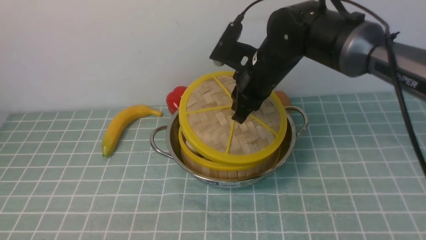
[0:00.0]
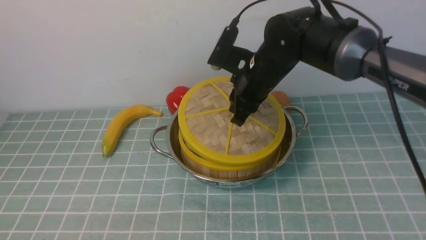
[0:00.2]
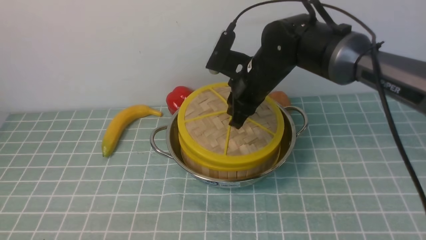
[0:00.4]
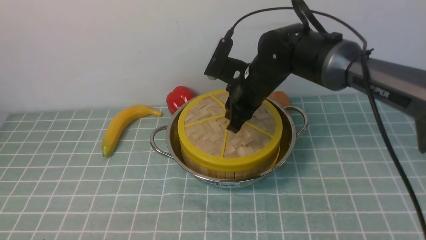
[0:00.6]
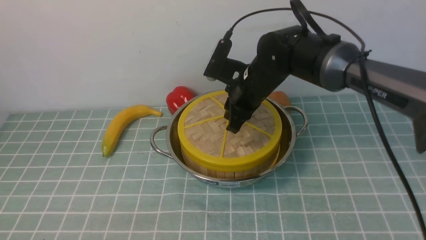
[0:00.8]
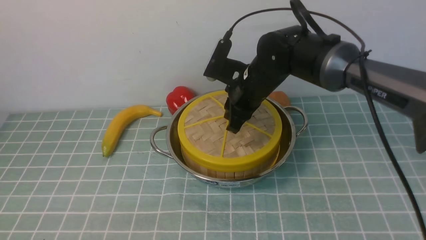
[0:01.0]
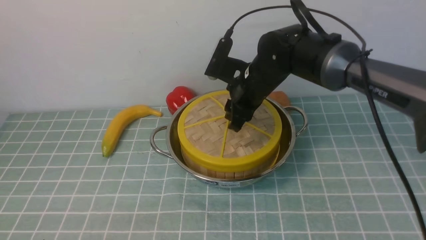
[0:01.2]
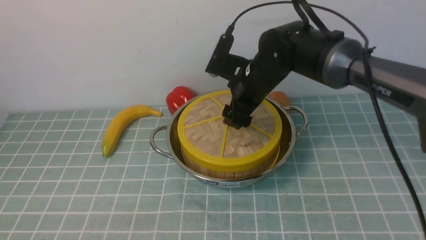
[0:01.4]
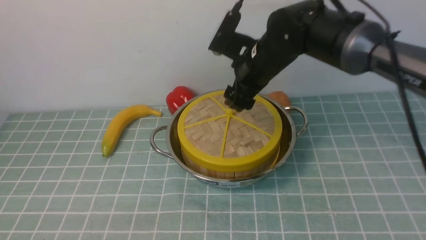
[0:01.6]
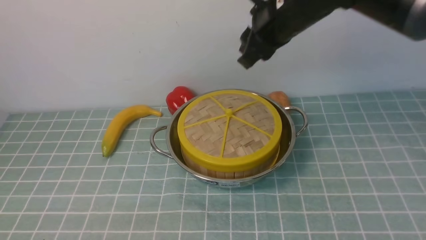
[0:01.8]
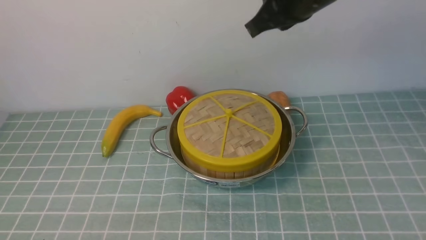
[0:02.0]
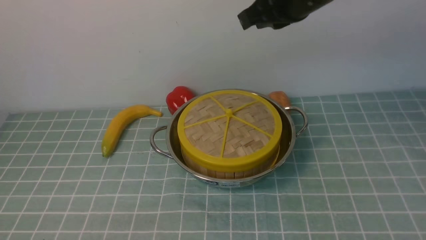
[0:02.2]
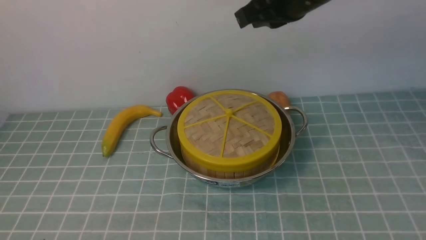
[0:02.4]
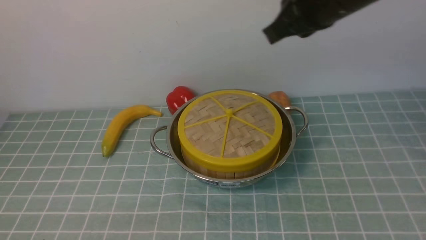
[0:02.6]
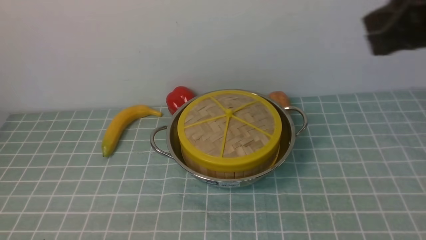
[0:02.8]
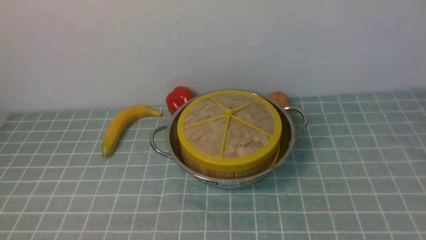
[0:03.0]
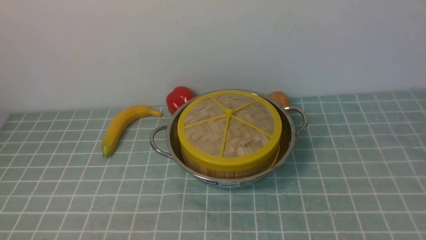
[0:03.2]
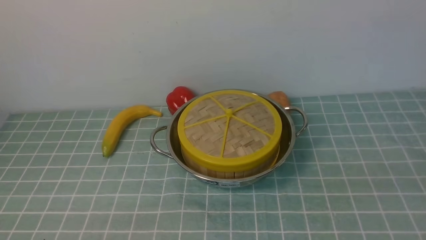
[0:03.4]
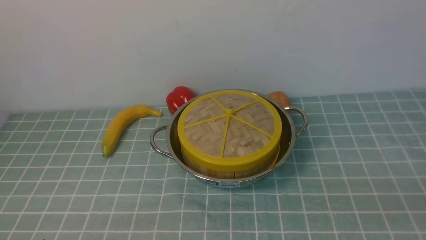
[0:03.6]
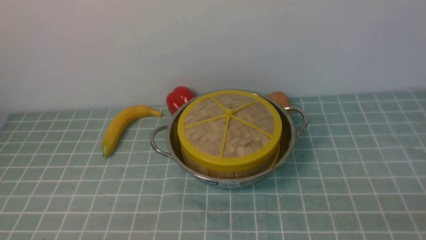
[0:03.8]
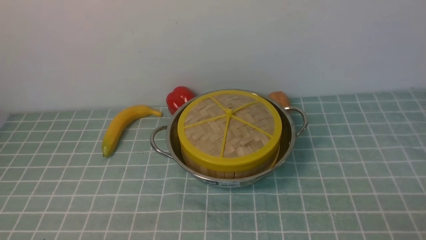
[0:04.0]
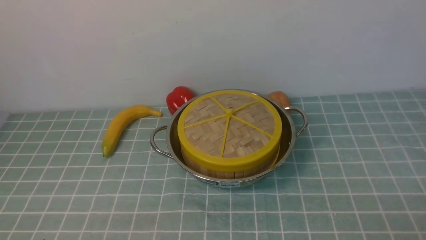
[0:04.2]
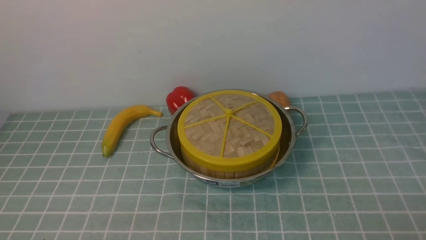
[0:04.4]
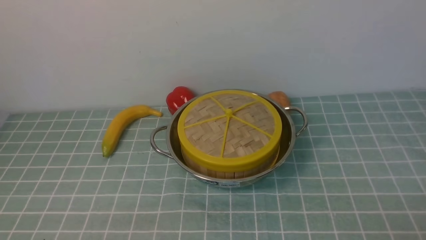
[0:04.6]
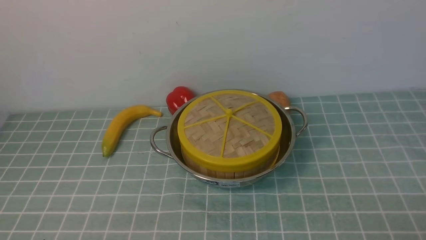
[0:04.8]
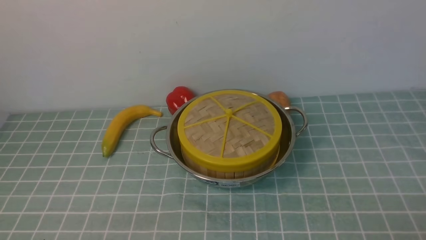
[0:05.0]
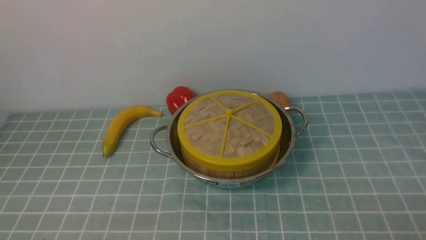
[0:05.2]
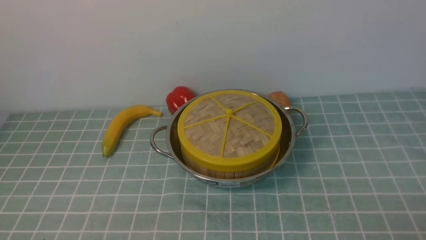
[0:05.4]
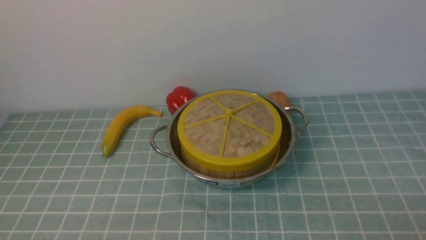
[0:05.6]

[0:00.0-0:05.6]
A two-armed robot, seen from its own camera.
Task of the whole recording: place the steamer in the pot on the blue tablecloth, and put the lid on the steamer.
Step, 0:00.0 to 0:02.6: use the right arm to place the steamer lid on the steamer.
0:00.0 to 0:01.4: The right gripper opens.
0:01.4 to 0:02.8: The right gripper is displaced backward, to the right and upward by some 30 cm, and closes.
0:02.8 to 0:04.2: The right gripper goes approximately 30 cm downward and backward.
0:04.2 to 0:05.6: Both grippers stay about where they are.

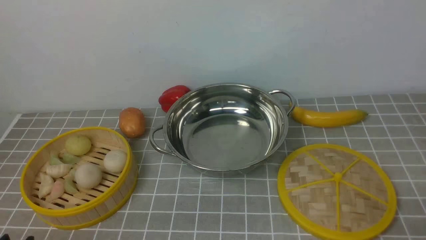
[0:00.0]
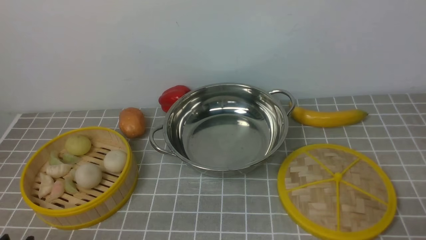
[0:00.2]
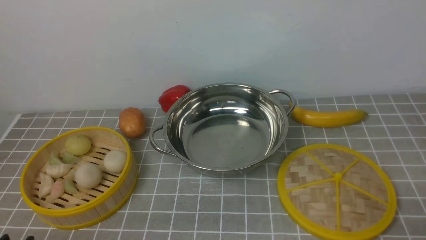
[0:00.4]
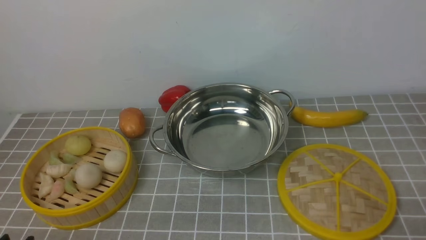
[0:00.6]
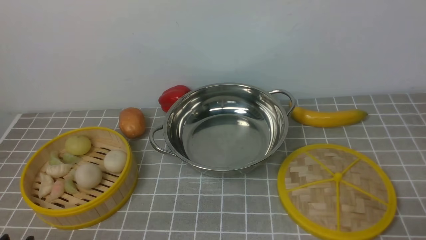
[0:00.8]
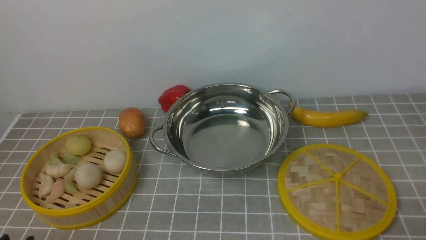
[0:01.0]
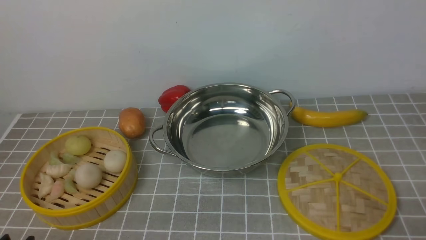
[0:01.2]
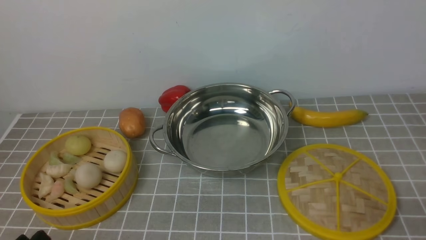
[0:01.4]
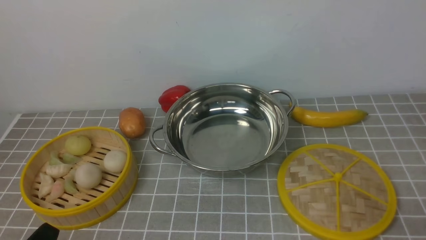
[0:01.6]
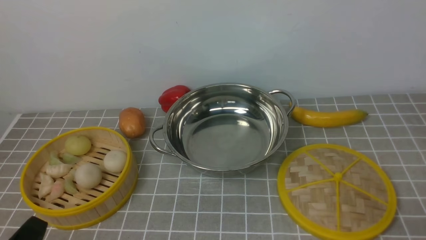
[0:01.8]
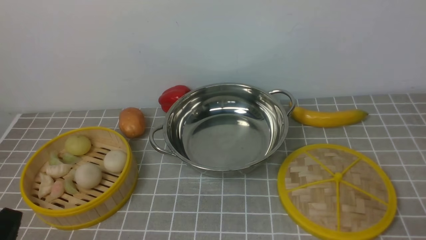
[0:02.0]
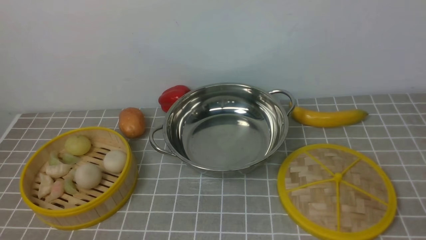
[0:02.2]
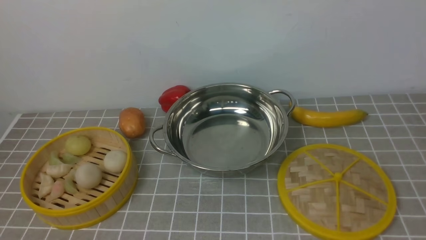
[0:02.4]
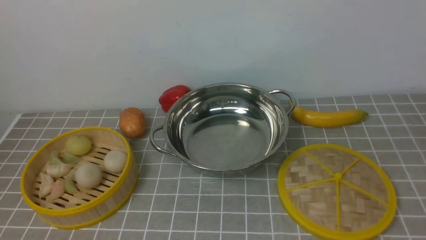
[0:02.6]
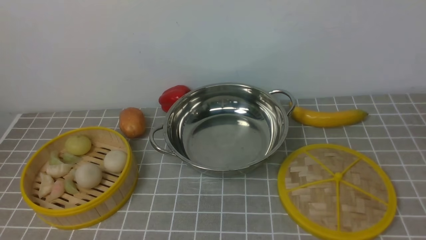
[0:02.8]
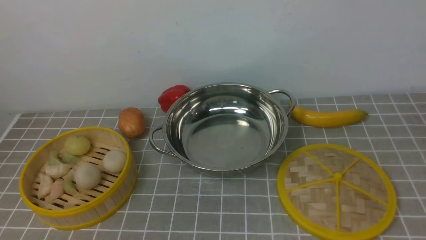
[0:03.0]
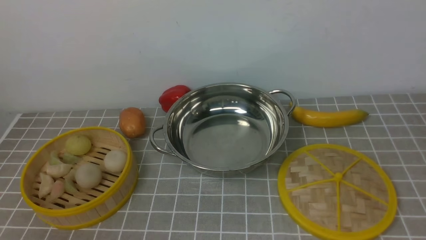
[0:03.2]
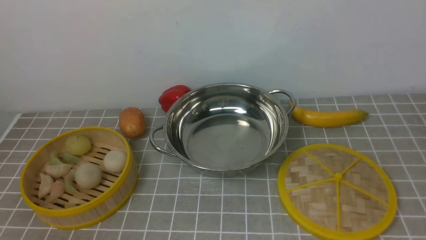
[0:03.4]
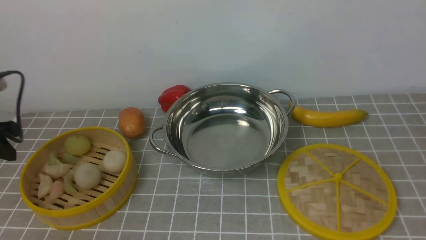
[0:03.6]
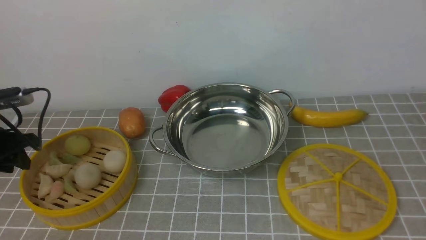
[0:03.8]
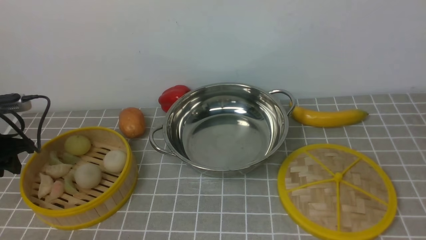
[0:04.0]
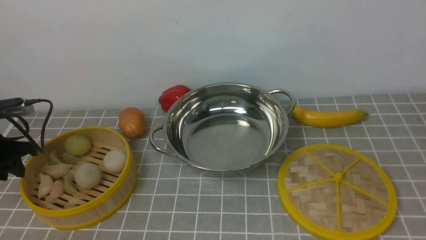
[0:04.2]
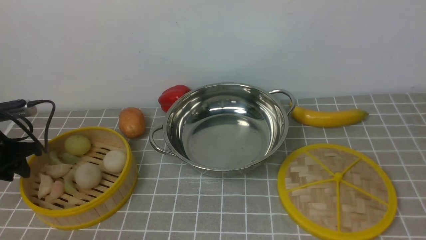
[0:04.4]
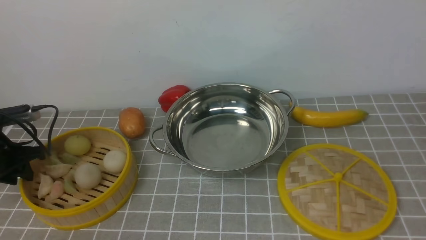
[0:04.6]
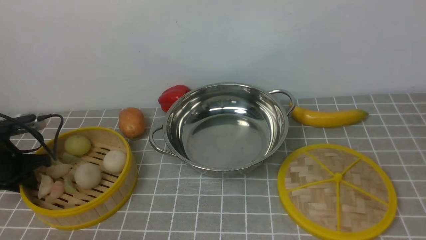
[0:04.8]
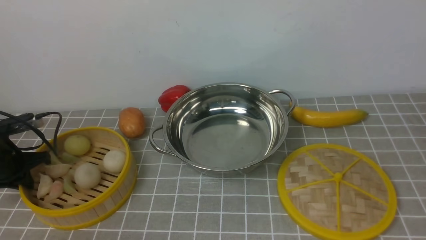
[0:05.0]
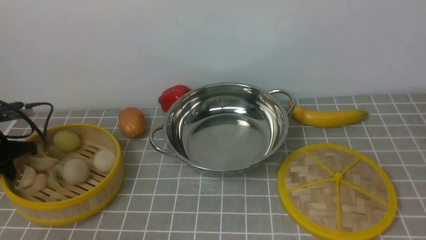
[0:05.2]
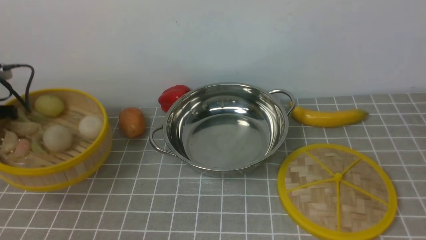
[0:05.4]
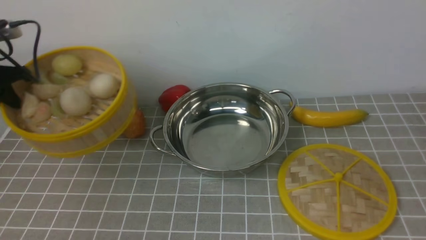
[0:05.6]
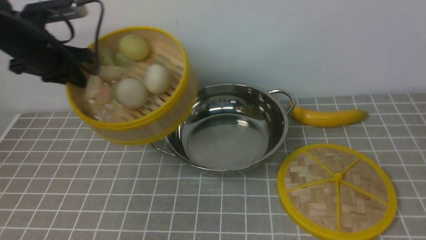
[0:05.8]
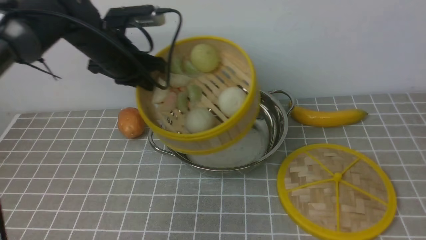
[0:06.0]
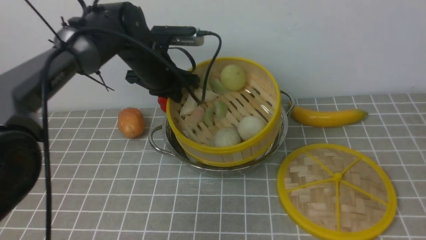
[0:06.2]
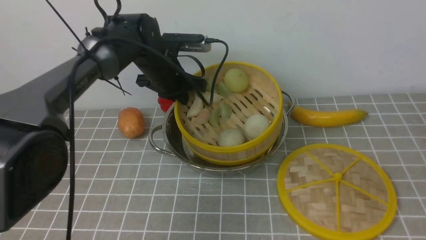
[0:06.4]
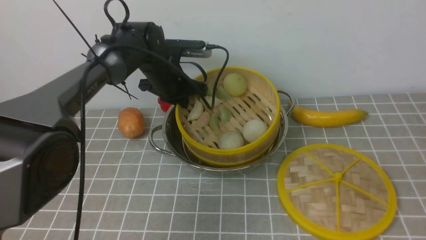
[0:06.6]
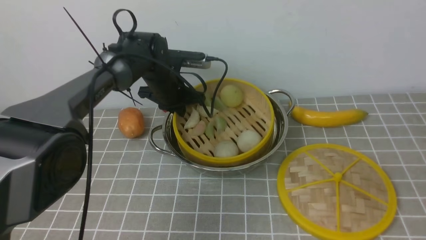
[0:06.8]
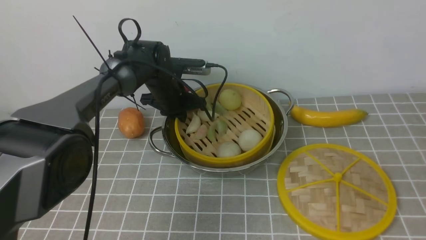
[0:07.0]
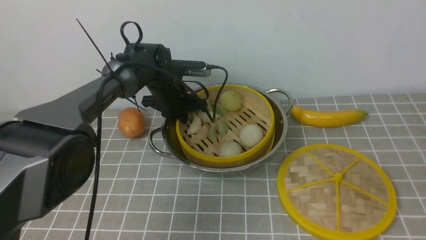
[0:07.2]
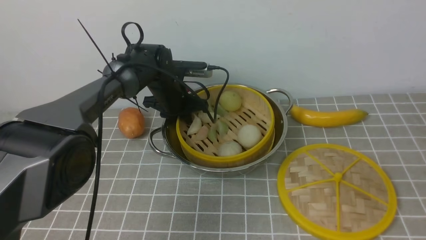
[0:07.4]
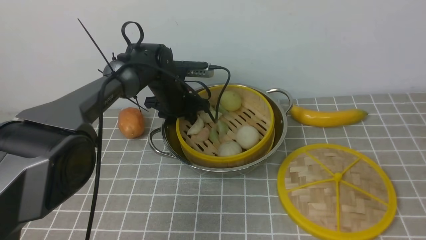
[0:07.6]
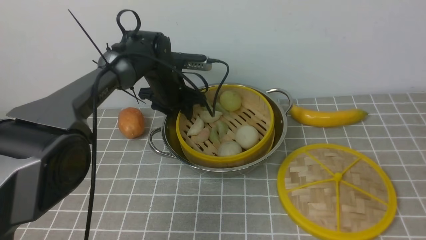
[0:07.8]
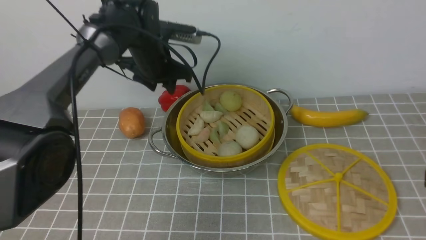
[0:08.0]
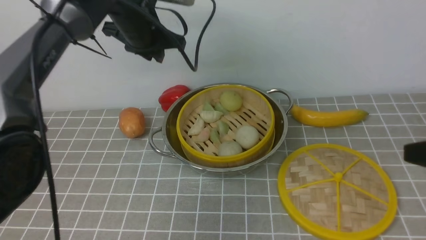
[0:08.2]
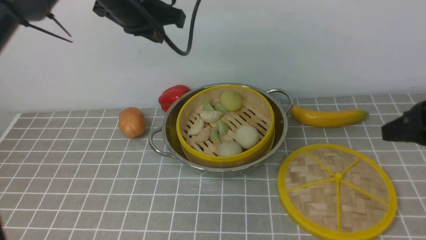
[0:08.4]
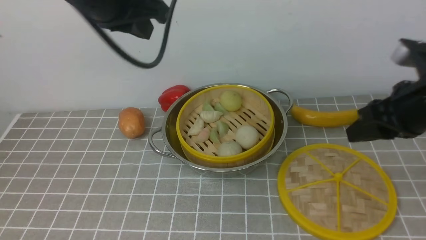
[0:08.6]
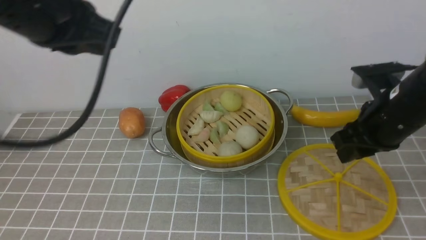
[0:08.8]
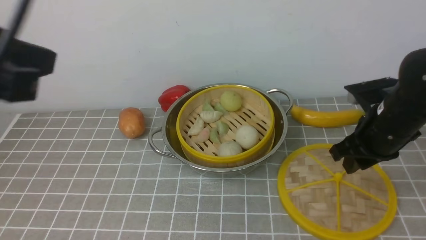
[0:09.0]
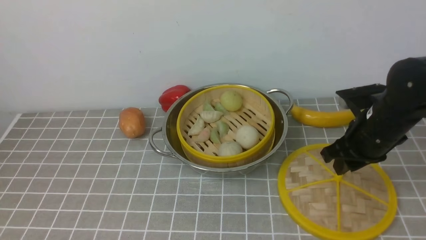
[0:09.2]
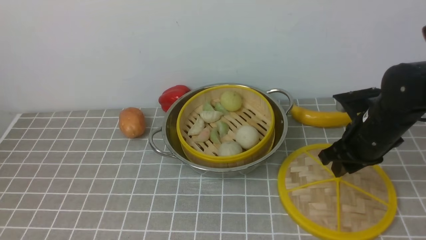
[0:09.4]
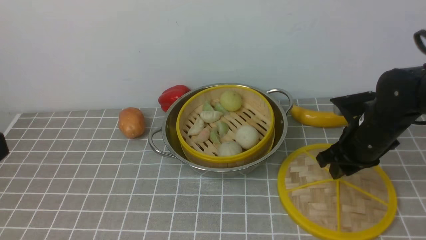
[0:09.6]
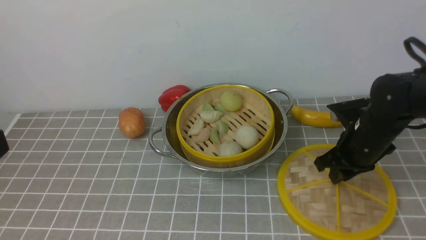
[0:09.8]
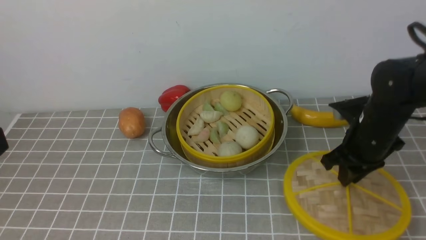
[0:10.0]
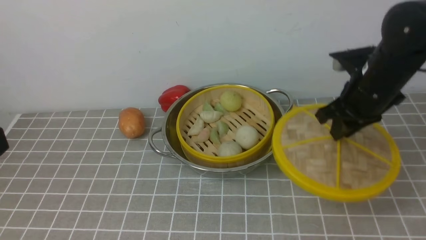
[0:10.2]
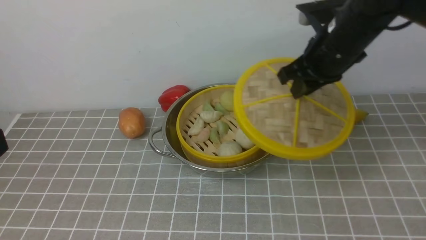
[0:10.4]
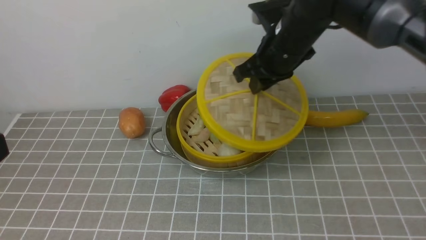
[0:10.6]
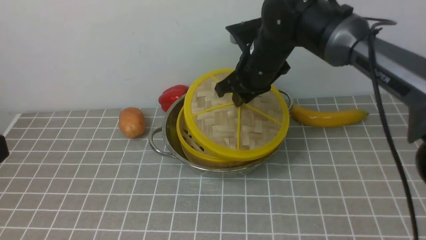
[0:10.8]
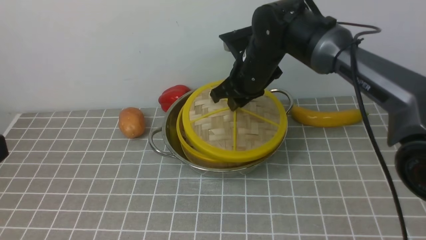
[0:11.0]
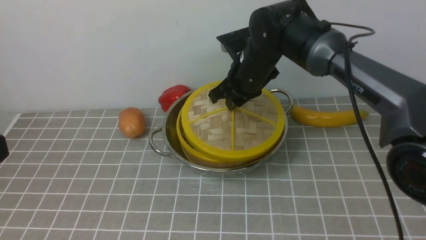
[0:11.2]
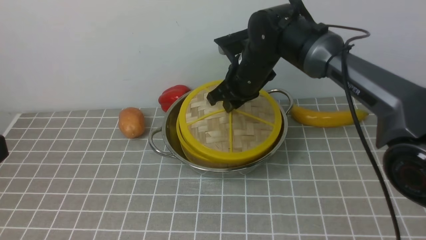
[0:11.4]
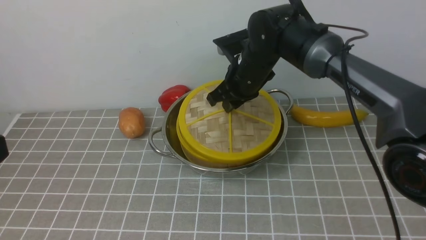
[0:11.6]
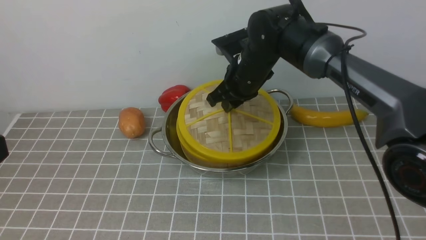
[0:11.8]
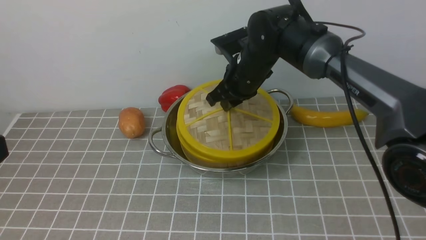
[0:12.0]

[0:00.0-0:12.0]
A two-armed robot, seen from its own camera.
Task of the whole recording: place the steamer in the pot on the grey tablecloth, and put the lid on the steamer.
Step, 0:00.0 to 0:05.2: use the left arm to lift the steamer closest to it.
Step, 0:05.4 to 0:07.8: use the left arm to put the steamer into the iron steamer pot in the middle.
Step, 0:08.0 to 0:10.0: use the right arm to lift the lid of the steamer.
0:01.6 to 0:03.0: The left gripper travels upward and forward by approximately 25 cm.
0:03.0 to 0:04.4: The left gripper travels downward, forward and to the left by roughly 30 cm.
0:04.4 to 0:06.0: The left gripper travels to the right, forward and upward by some 25 cm, and closes its fingers.
0:06.0 to 0:07.6: The left gripper moves downward, to the right and forward, roughly 15 cm, and opens.
0:07.6 to 0:09.0: The left gripper heads backward and upward, covering some 40 cm, and closes its fingers. The right gripper goes some 20 cm forward.
0:09.0 to 0:10.4: The left gripper is displaced backward and downward by approximately 10 cm; the right gripper heads to the left, upward and forward, covering some 15 cm.
0:10.4 to 0:12.0: The right gripper is displaced to the left, downward and forward by approximately 15 cm.
